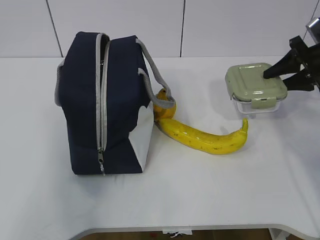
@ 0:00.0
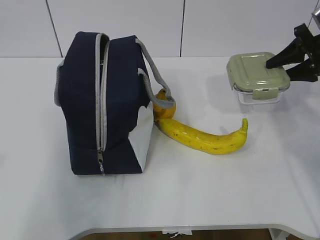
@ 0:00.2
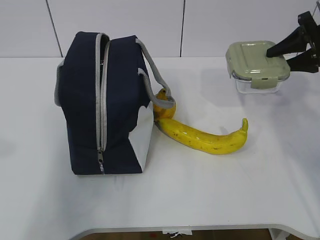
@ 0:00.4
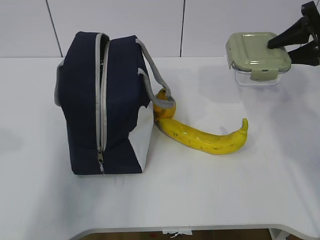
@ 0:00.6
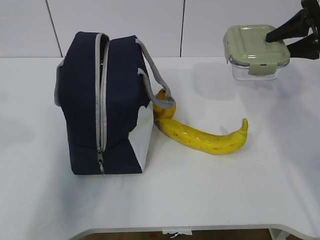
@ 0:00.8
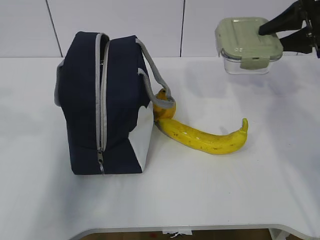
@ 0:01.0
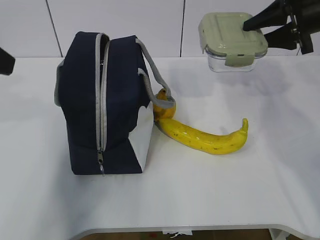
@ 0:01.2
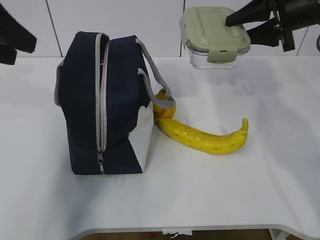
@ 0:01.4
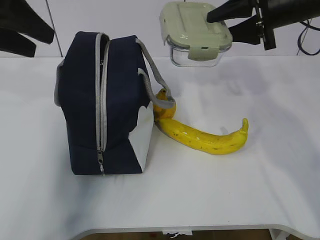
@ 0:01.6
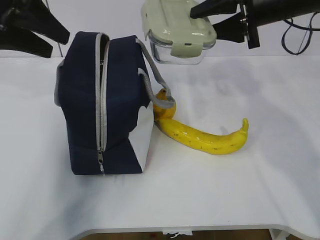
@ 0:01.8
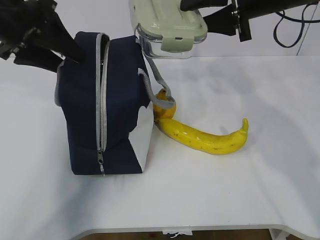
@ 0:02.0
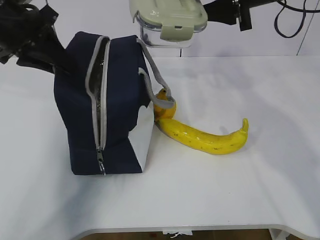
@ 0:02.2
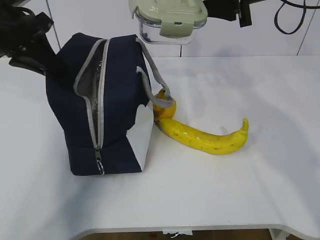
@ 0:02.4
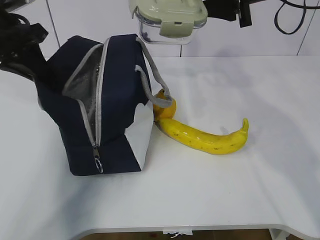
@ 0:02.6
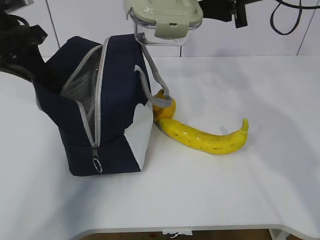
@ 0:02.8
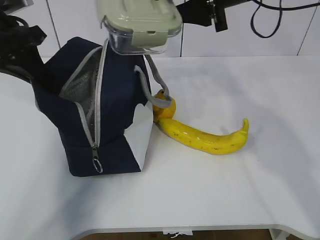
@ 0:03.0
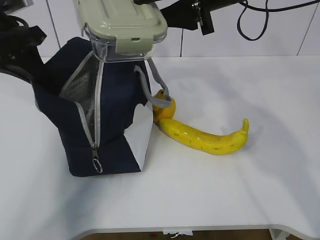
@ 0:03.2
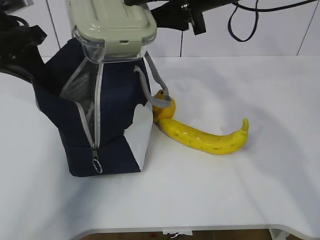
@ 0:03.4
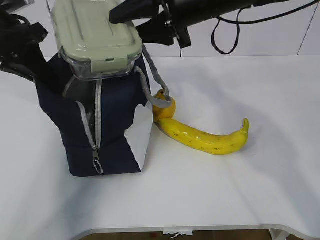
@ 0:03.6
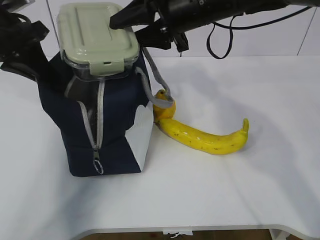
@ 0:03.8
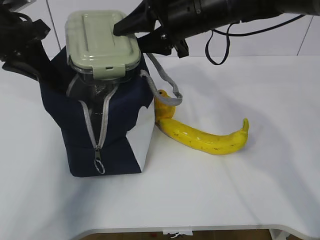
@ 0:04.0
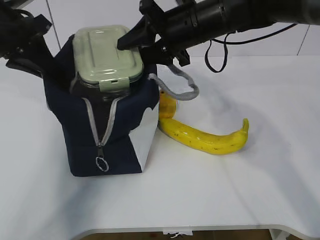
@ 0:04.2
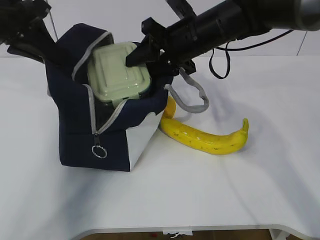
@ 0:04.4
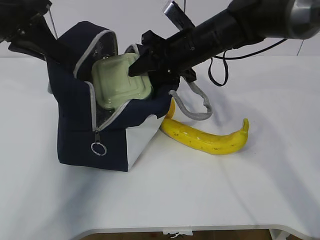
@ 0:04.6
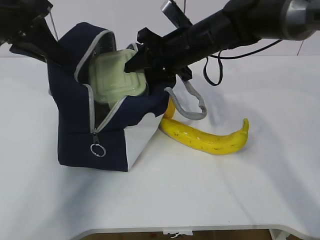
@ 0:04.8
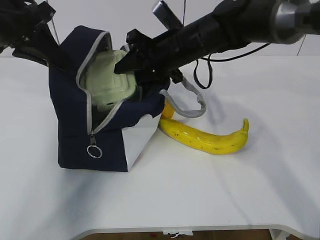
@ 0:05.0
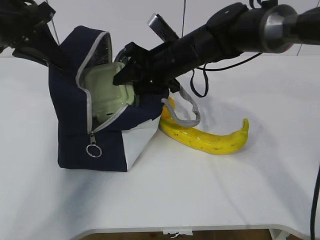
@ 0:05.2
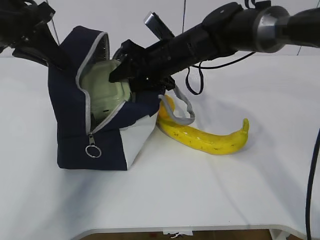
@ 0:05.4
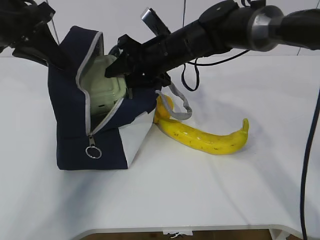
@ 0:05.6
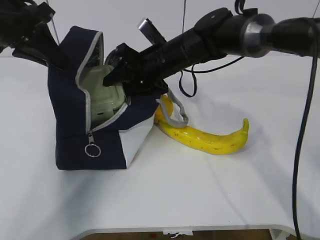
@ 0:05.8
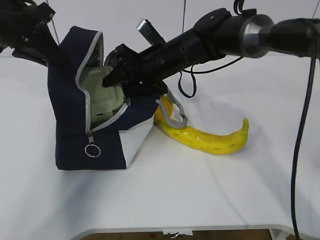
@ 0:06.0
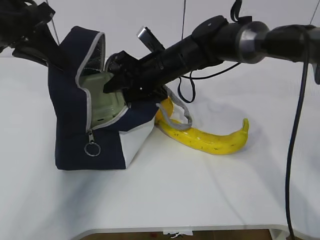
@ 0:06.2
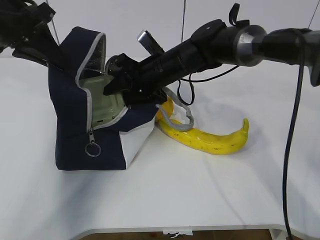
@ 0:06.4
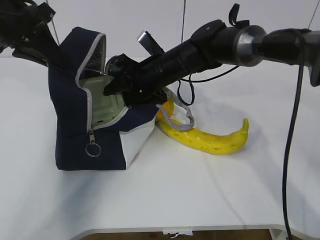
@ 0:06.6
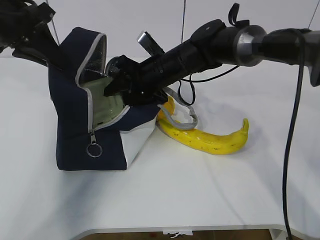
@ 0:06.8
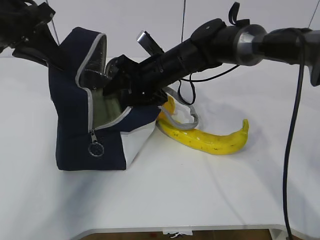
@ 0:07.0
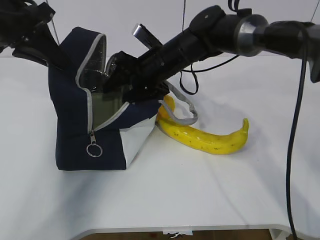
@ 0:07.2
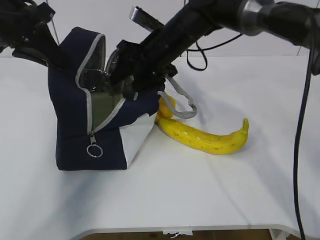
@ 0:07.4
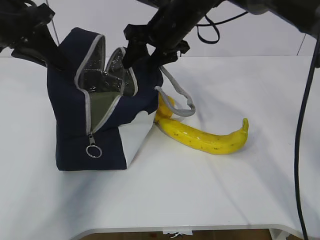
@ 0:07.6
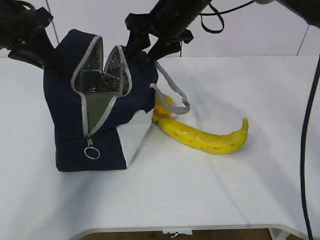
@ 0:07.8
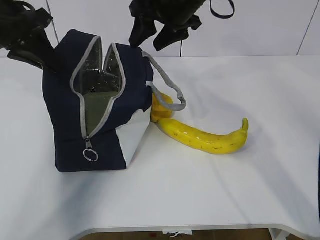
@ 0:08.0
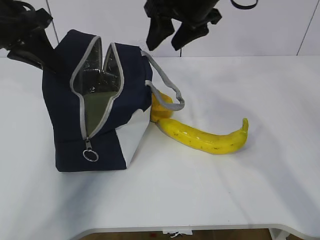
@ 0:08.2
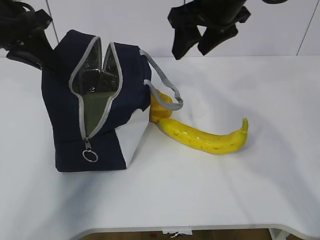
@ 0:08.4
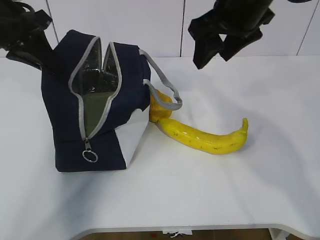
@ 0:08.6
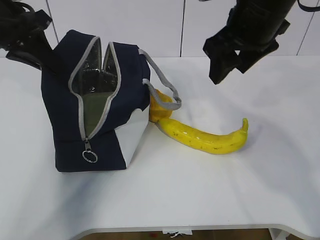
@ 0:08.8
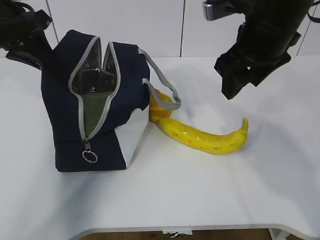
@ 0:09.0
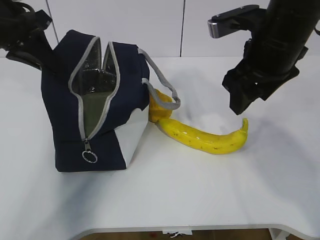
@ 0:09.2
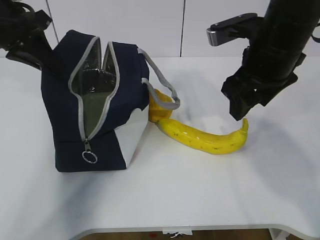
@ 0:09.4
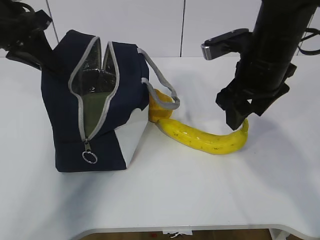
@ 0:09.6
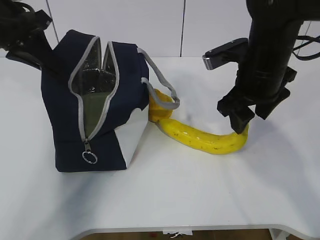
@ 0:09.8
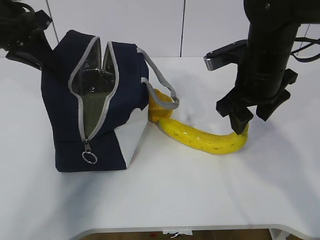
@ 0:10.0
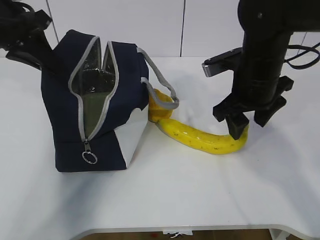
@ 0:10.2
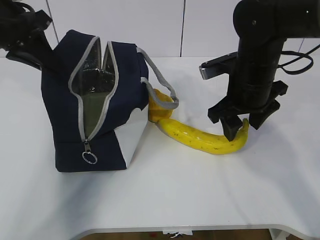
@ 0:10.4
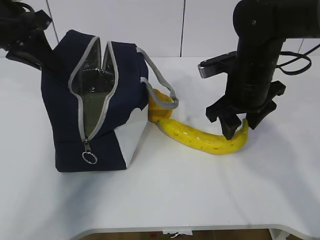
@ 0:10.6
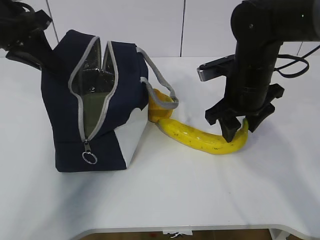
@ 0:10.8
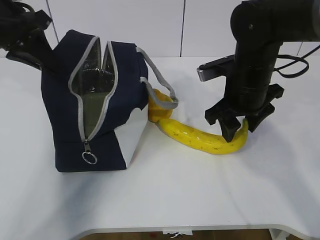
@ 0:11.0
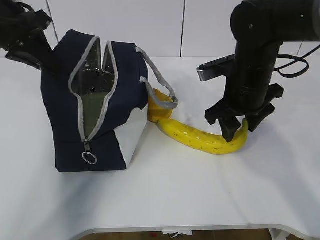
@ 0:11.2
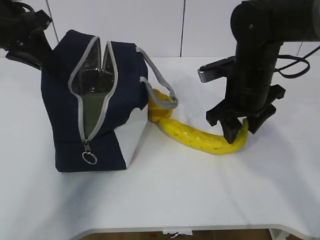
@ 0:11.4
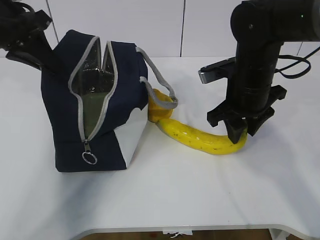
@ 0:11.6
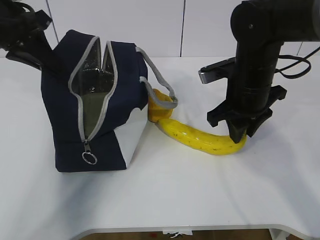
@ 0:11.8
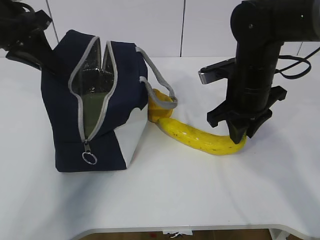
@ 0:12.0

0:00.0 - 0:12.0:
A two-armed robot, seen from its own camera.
Step, 0:00.0 - 0:07.4: Place the box into the package with the right gripper.
0:00.0 - 0:01.6: The left gripper moves forward, roughly 30 cm, and opens up, while the right gripper shifts roughly 15 cm to the left and upward.
0:01.6 - 0:03.0: The right gripper travels to the left by roughly 10 cm. The left gripper goes some 5 cm downward, and closes up.
0:03.0 - 0:04.4: The right gripper heads downward and to the left, covering some 10 cm.
0:04.4 - 0:06.0: The right gripper moves downward, approximately 5 cm.
0:06.0 - 0:07.6: The right gripper goes some 5 cm upward.
0:07.6 - 0:09.0: The right gripper shifts roughly 15 cm backward and to the right.
0:09.0 - 0:10.4: The right gripper shifts approximately 10 cm downward.
0:10.4 - 0:12.0: The right gripper closes its fingers.

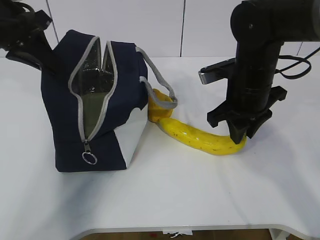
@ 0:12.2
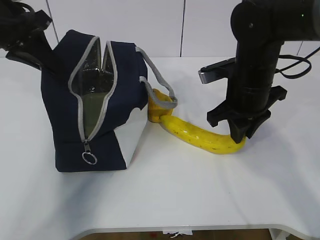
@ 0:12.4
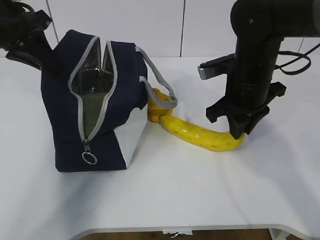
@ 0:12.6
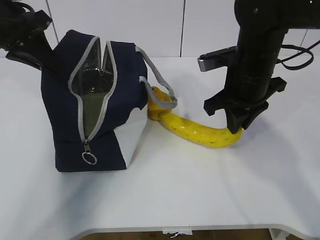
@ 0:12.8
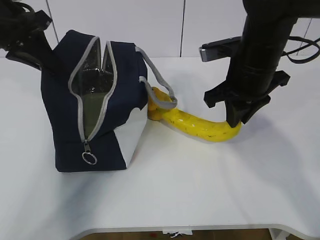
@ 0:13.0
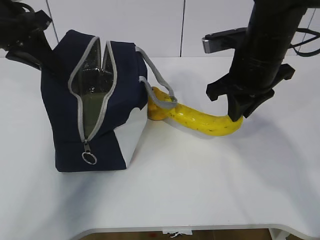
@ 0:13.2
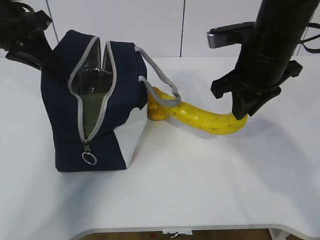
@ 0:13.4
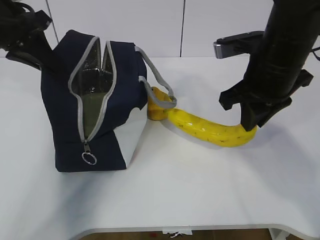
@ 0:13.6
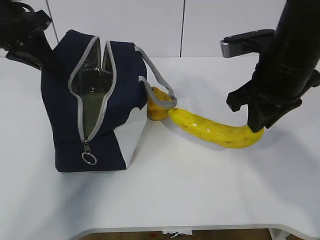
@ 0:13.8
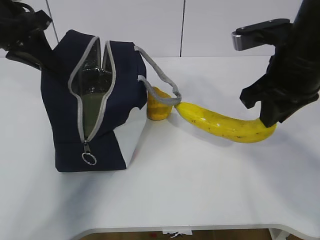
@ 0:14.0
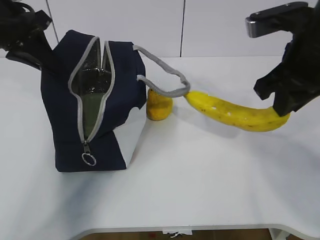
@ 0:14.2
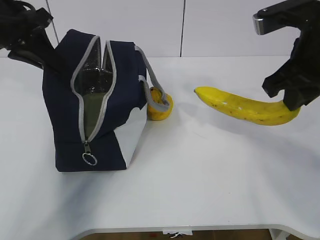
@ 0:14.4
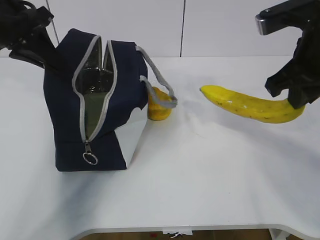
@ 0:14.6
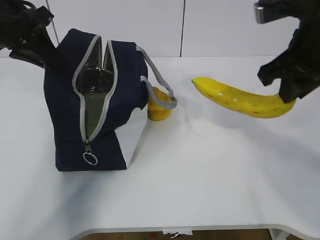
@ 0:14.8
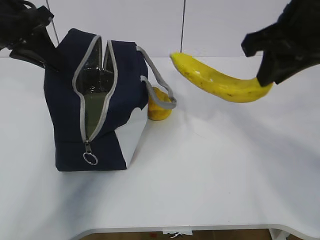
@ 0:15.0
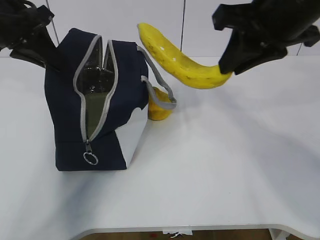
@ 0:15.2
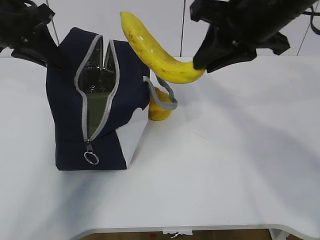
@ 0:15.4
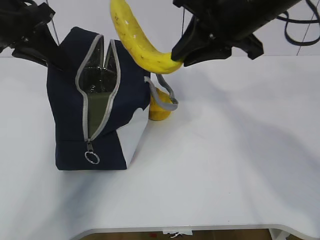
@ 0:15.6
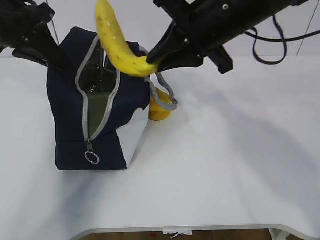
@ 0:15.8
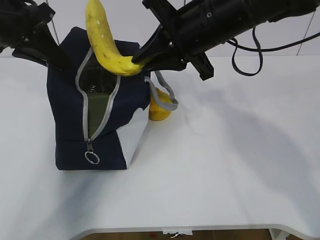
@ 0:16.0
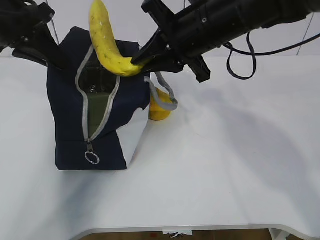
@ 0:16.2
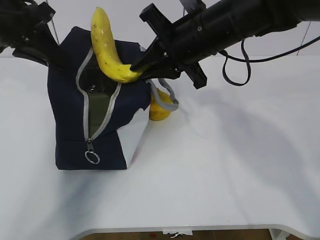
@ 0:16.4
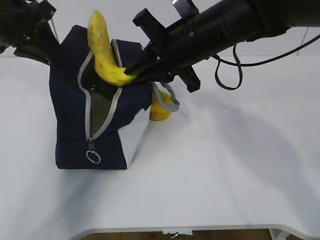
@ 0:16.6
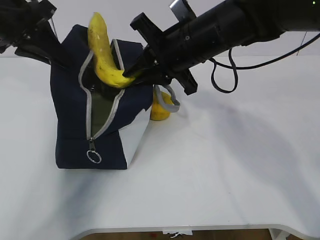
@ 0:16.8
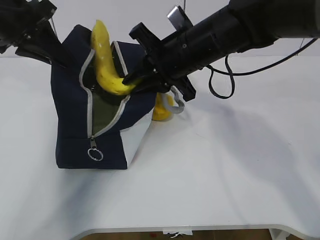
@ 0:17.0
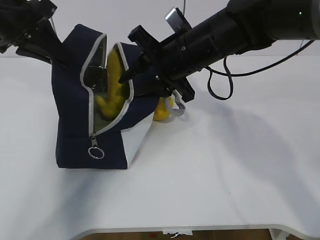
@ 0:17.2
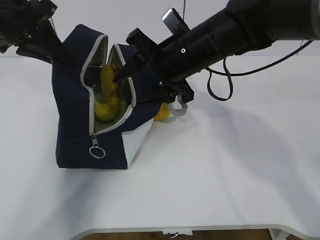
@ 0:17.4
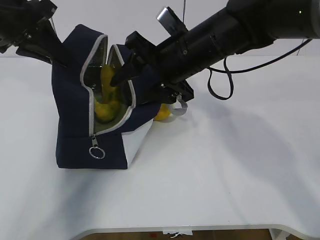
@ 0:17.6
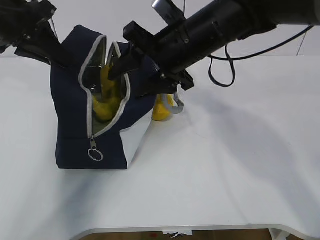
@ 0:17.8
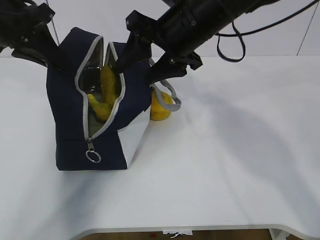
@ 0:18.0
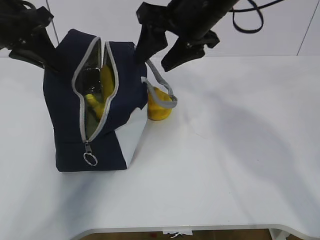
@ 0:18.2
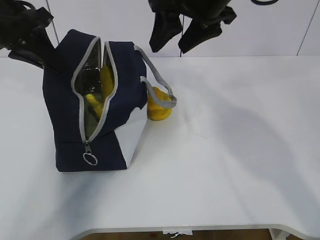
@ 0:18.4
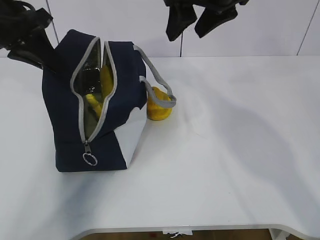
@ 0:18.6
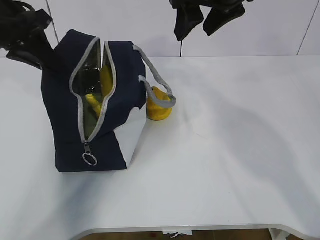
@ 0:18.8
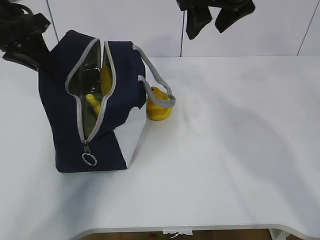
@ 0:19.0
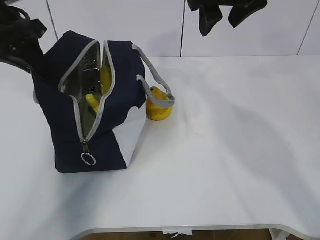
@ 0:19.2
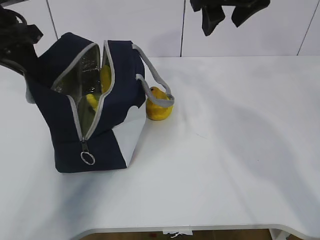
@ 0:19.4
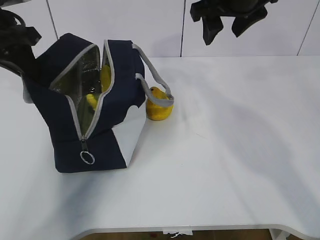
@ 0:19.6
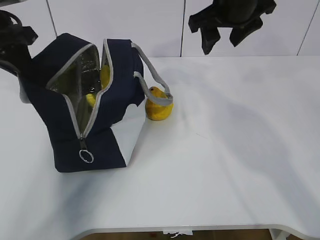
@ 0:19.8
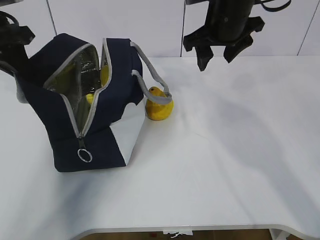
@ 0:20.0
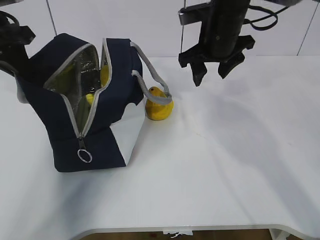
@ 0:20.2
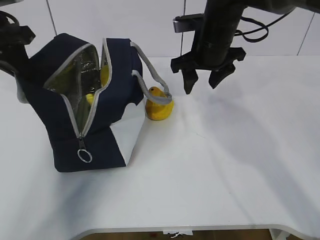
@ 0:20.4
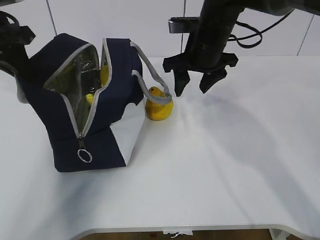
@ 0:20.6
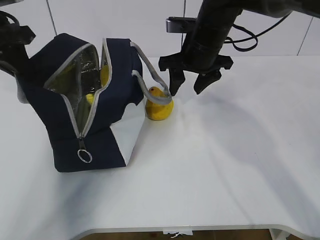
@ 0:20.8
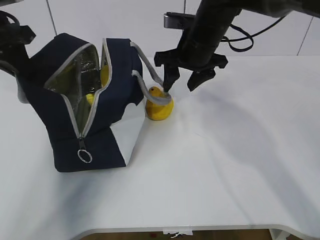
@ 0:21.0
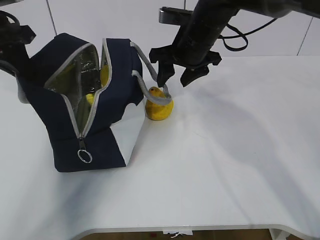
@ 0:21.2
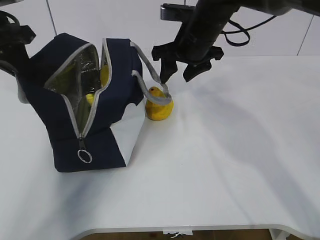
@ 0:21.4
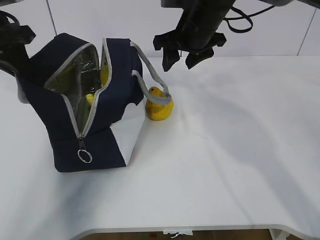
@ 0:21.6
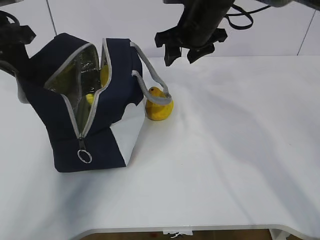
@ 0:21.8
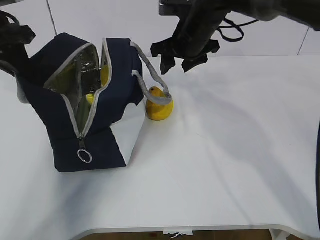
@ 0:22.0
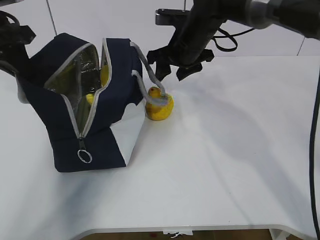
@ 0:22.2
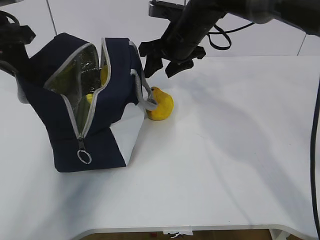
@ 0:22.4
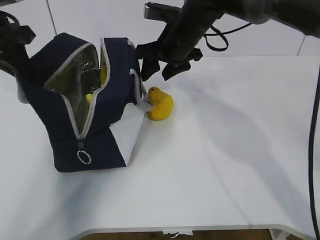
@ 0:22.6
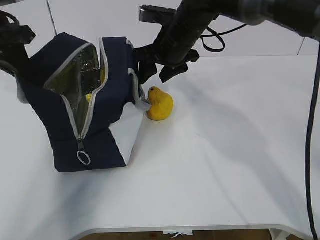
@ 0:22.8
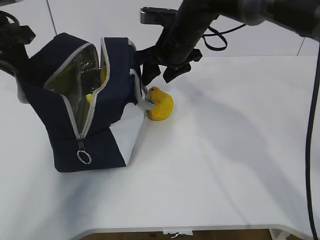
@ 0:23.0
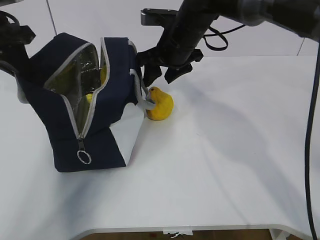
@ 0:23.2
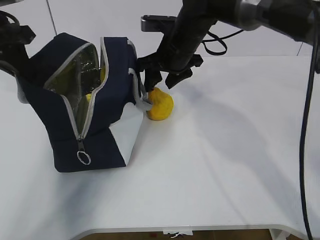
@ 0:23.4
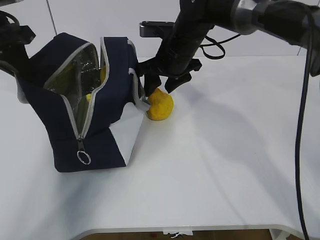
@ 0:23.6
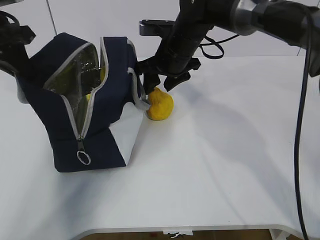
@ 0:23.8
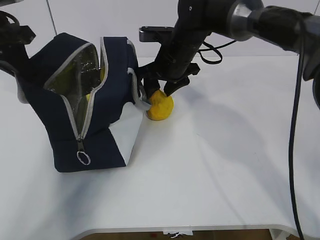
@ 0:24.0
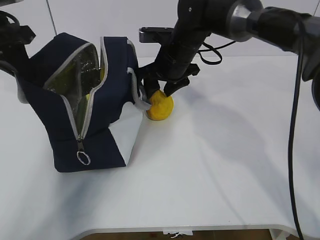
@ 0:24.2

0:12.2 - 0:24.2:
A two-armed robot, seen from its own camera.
Step, 0:12.2 - 0:17.6: Place the banana into the package with the right gripper.
0:12.2 - 0:13.8: The right gripper moves upward and backward, about 10 cm.
0:13.8 - 0:15.2: The right gripper moves upward, approximately 10 cm.
0:15.2 - 0:16.6: The right gripper shifts about 15 cm to the left, downward and forward.
0:16.6 - 0:18.2: The right gripper heads upward, covering some 5 cm, and opens its fingers.
0:18.2 - 0:19.8: The right gripper moves to the right, some 5 cm.
0:19.8 - 0:21.2: The right gripper is displaced downward by some 10 cm.
0:21.2 - 0:24.2: There are only small adjustments of the grippers.
